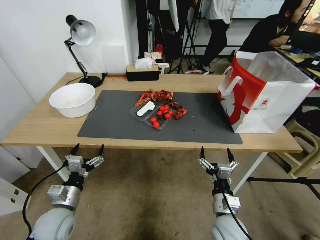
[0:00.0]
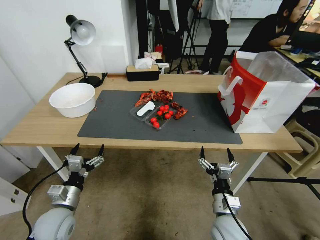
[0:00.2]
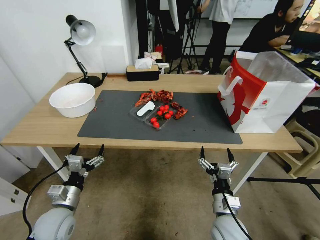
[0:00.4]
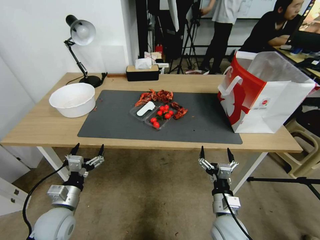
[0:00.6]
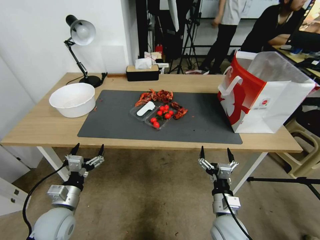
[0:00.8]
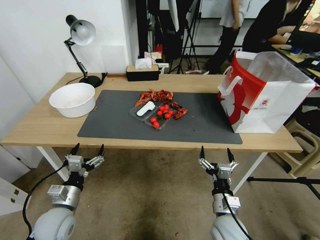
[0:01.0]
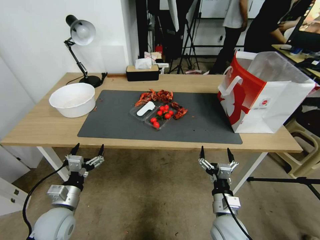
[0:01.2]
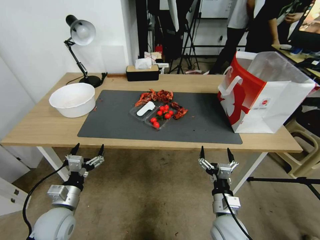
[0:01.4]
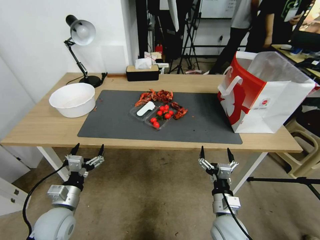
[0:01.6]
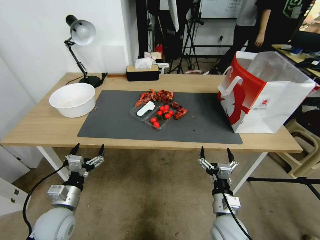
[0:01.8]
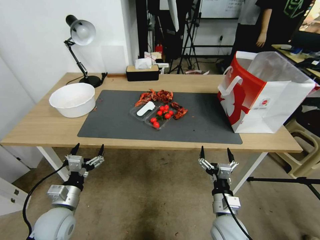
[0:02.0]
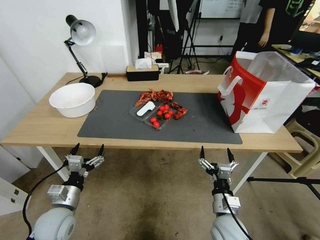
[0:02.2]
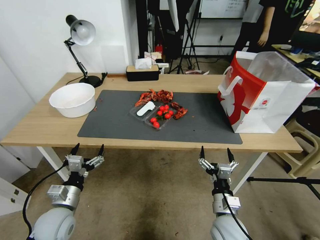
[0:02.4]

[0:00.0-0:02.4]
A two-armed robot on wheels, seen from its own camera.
0:00.0 to 0:02.4: Neither gripper changes place.
